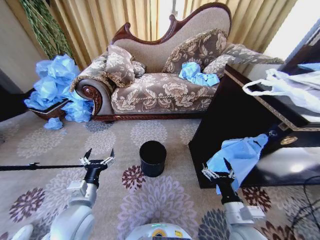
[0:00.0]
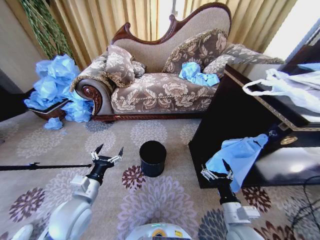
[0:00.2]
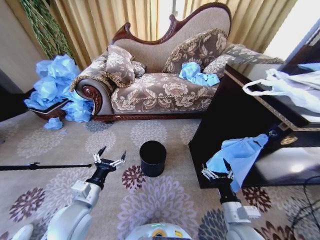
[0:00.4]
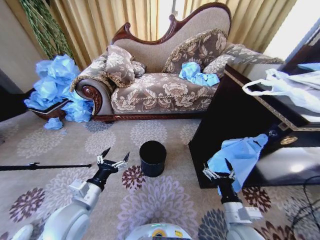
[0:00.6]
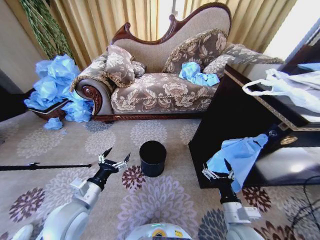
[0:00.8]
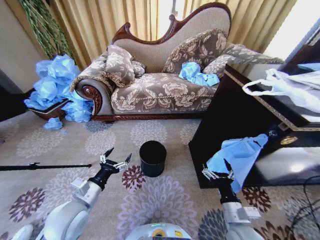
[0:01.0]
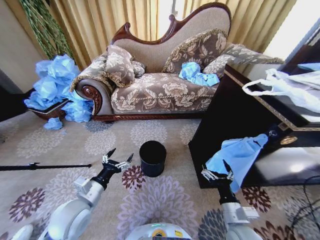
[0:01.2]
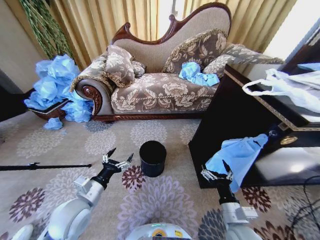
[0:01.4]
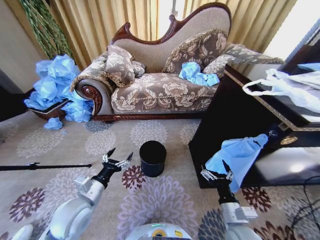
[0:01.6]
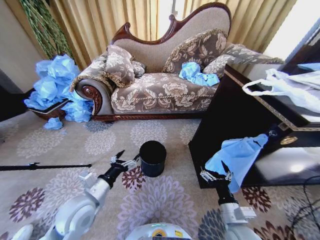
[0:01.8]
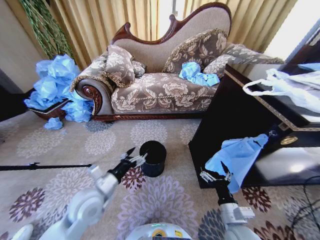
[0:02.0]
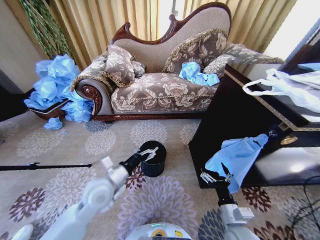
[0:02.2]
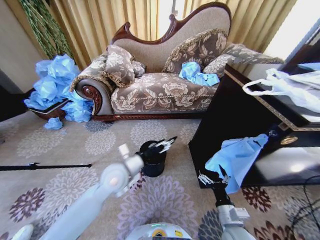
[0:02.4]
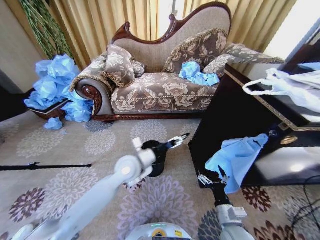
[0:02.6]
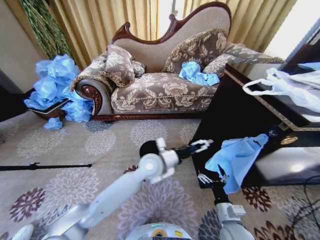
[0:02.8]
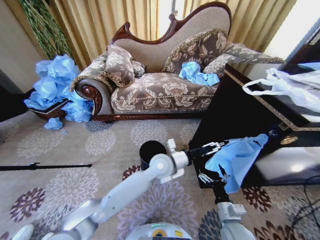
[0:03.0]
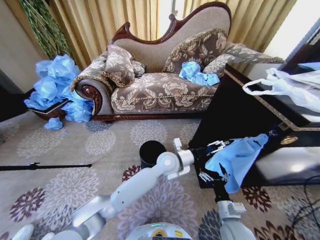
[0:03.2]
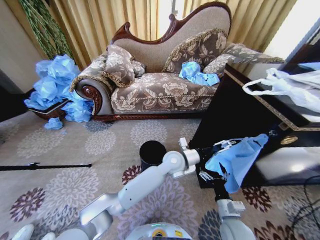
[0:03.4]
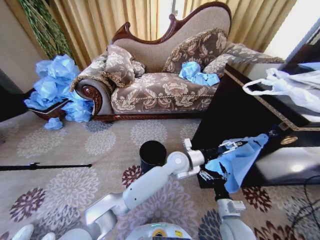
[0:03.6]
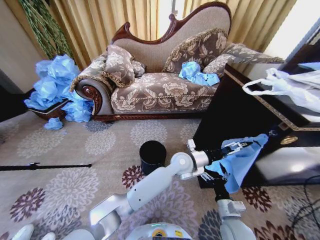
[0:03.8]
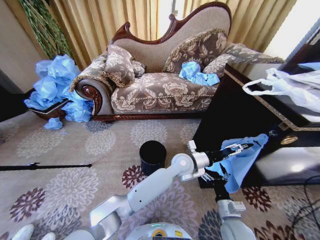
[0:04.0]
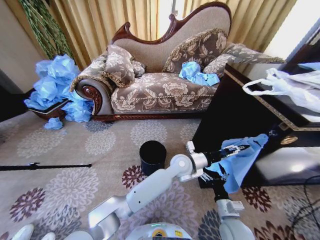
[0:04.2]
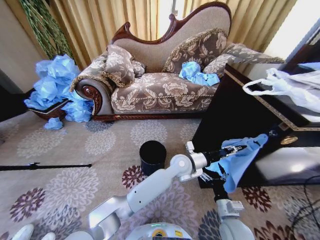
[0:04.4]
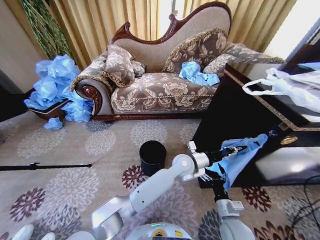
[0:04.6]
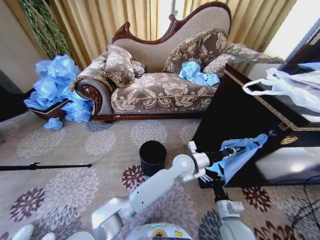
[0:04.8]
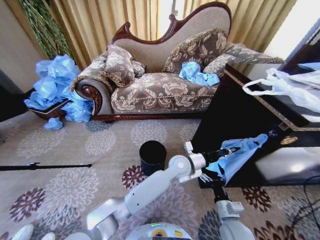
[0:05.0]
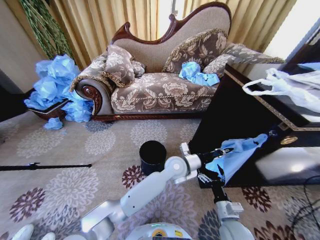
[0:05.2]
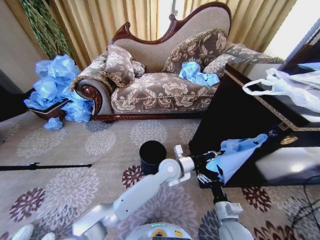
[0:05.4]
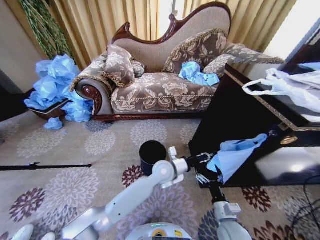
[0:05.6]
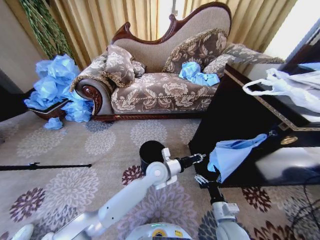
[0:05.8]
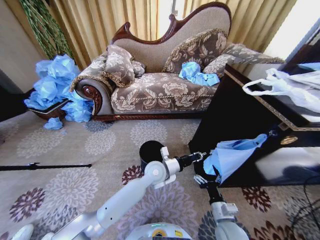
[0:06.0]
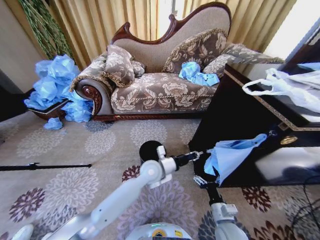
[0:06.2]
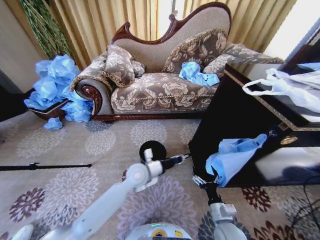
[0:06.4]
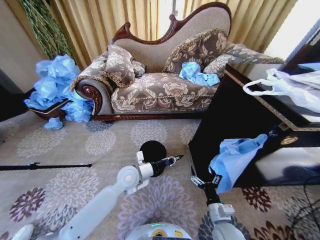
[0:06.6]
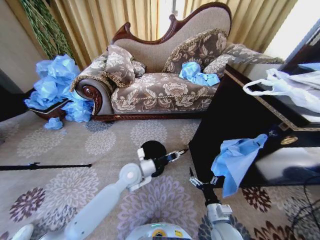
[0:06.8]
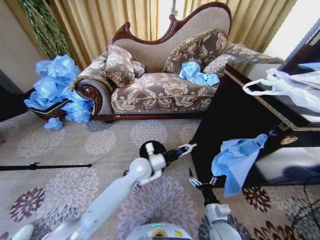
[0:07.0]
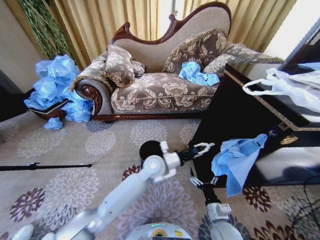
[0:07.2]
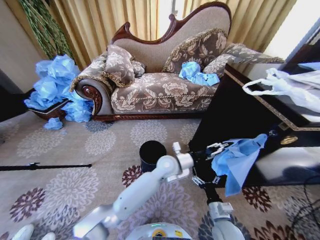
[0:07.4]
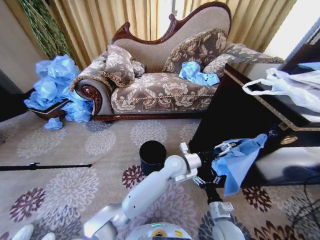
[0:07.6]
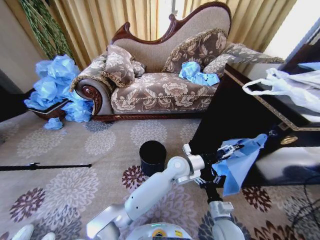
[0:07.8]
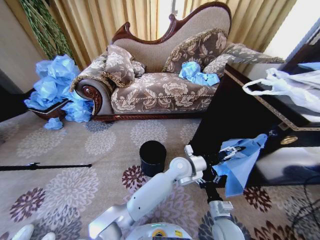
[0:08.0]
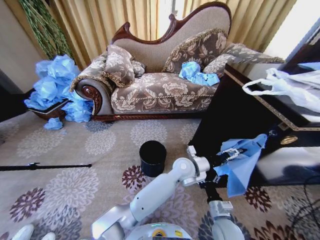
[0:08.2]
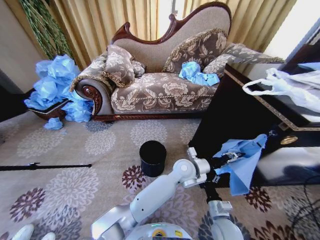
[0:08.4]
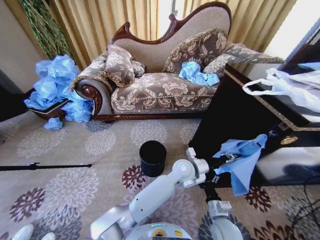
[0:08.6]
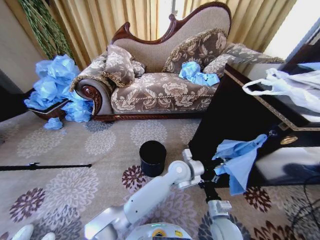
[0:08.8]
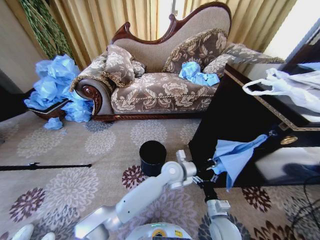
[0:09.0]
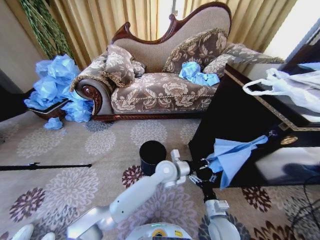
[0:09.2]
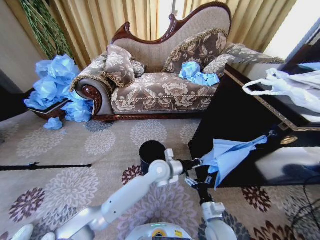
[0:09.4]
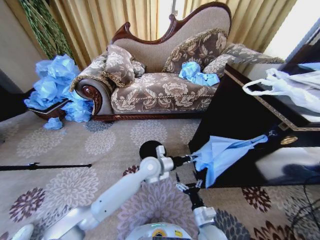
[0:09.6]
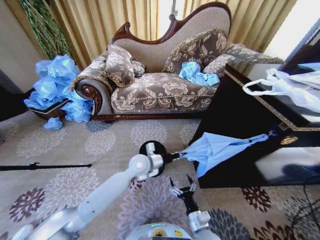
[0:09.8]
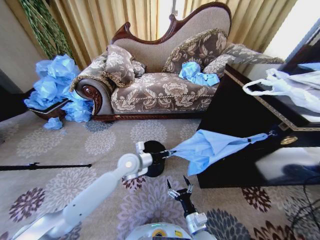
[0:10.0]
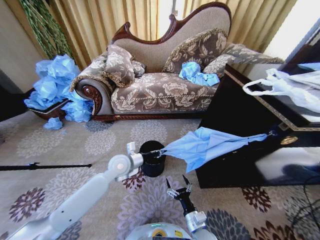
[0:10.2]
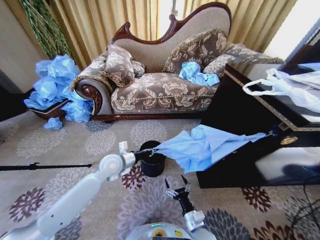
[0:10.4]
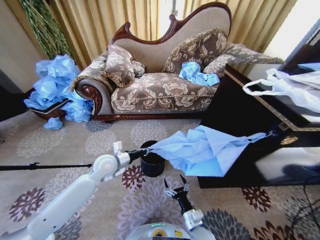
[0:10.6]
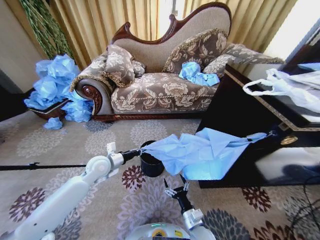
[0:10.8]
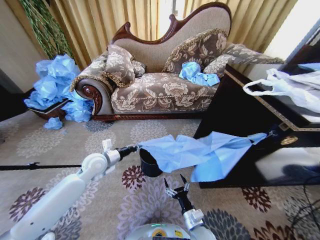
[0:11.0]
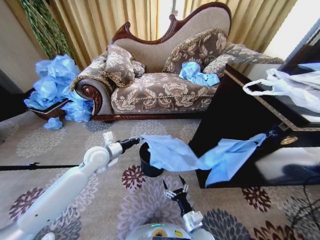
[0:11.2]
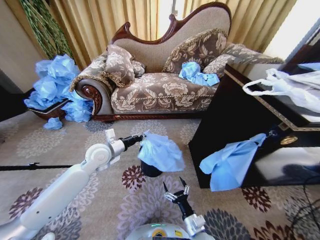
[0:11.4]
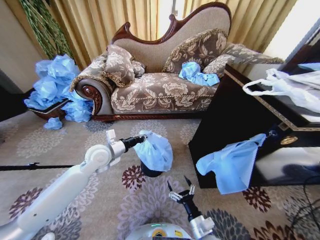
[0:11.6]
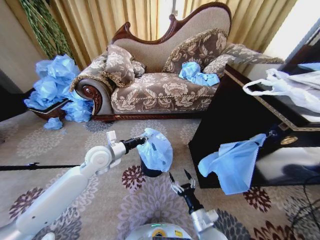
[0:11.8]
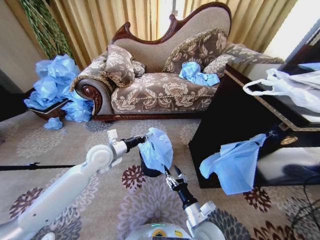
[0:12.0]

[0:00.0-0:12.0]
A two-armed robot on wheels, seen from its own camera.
Task of the whole recording: Place a garbage bag over the trash bin.
0:01.6 to 0:03.0: The left gripper shifts about 30 cm to the right and forward.
0:03.0 to 0:04.4: The left gripper goes roughly 10 cm to the right, and closes up.
0:04.4 to 0:06.0: The left gripper heads to the left, covering approximately 10 cm, and closes up.
0:06.0 to 0:07.6: The left gripper is displaced to the right by about 10 cm, and opens.
0:07.6 to 0:09.0: The left gripper closes.
0:09.0 to 0:10.4: The right gripper shifts some 10 cm to the left, while the left gripper goes approximately 25 cm to the left.
0:10.4 to 0:12.0: Both grippers travel together upward, about 5 cm.

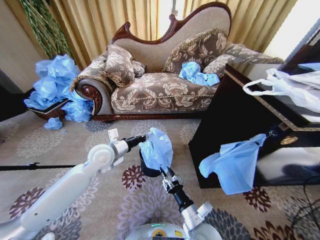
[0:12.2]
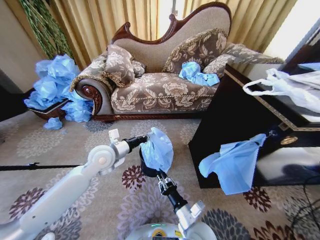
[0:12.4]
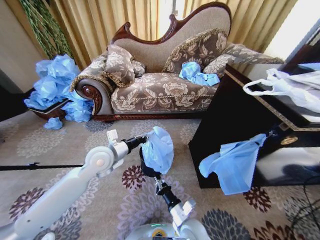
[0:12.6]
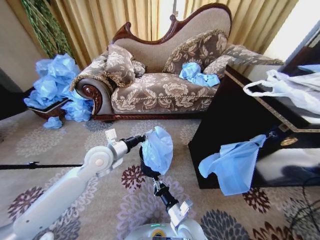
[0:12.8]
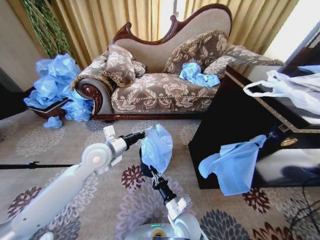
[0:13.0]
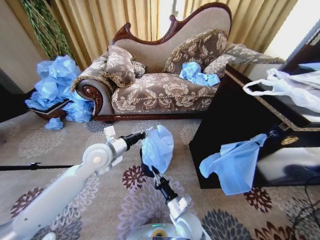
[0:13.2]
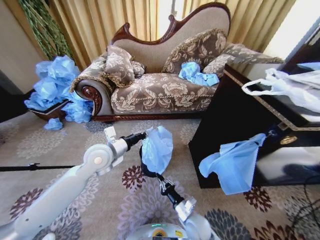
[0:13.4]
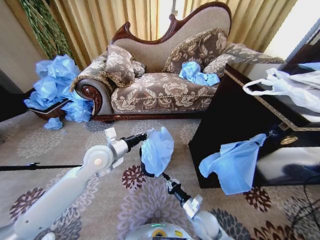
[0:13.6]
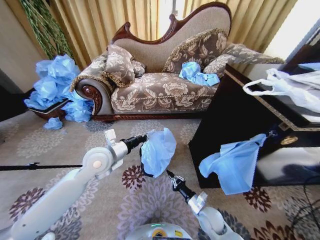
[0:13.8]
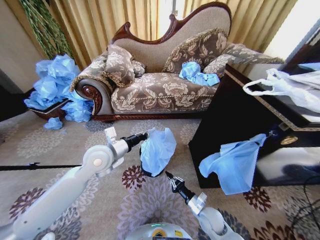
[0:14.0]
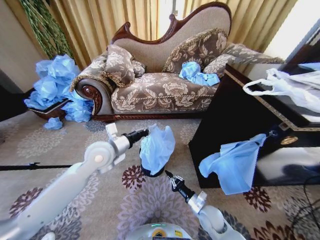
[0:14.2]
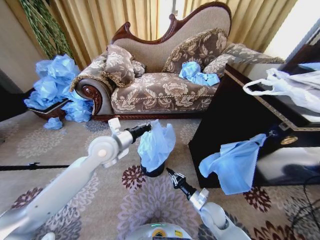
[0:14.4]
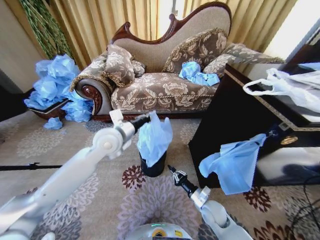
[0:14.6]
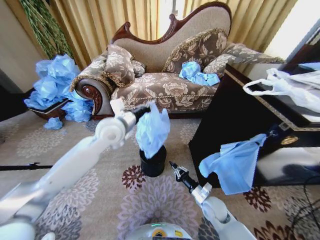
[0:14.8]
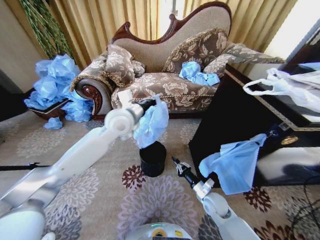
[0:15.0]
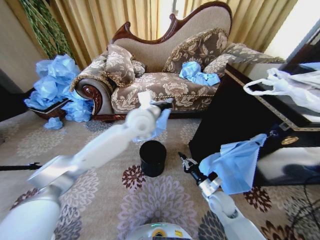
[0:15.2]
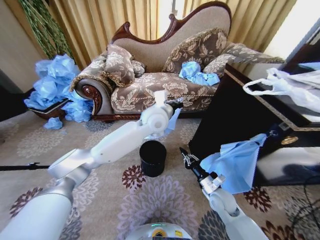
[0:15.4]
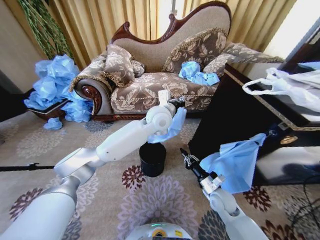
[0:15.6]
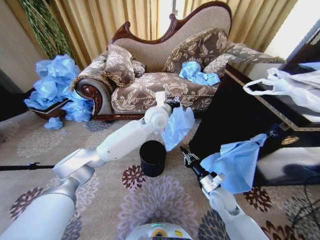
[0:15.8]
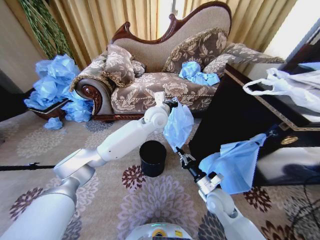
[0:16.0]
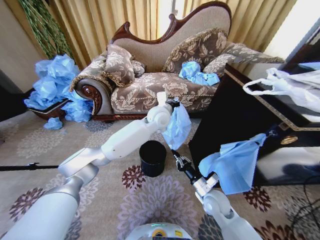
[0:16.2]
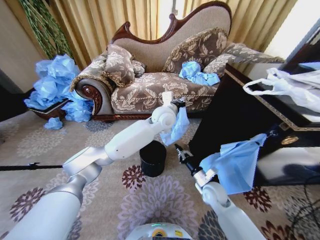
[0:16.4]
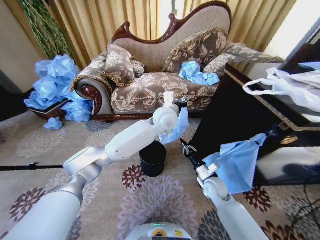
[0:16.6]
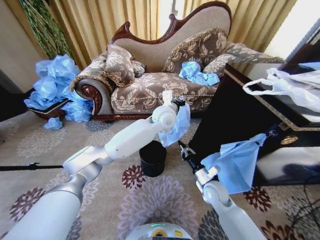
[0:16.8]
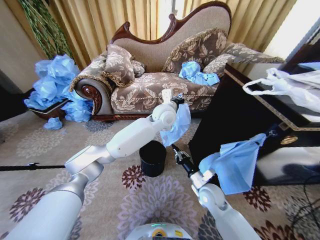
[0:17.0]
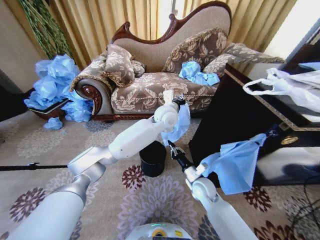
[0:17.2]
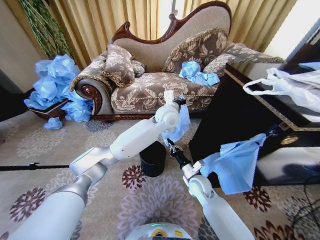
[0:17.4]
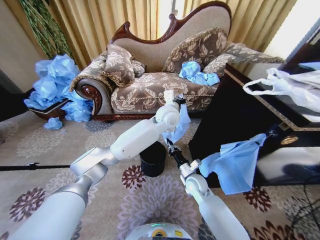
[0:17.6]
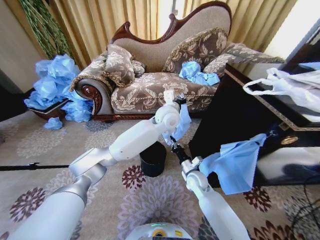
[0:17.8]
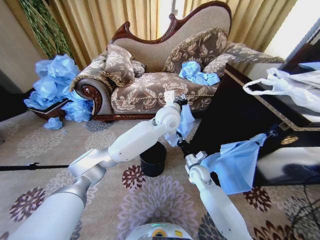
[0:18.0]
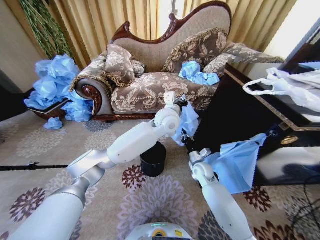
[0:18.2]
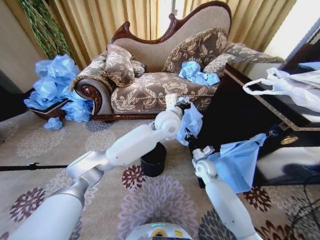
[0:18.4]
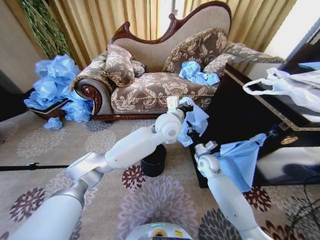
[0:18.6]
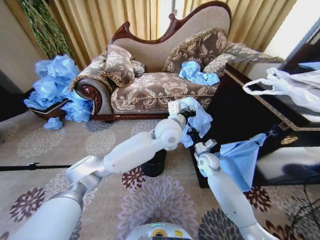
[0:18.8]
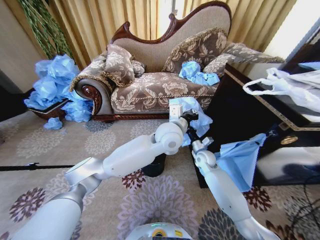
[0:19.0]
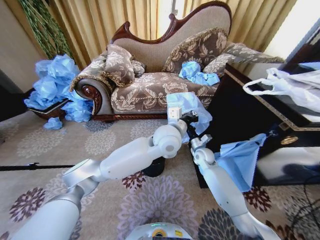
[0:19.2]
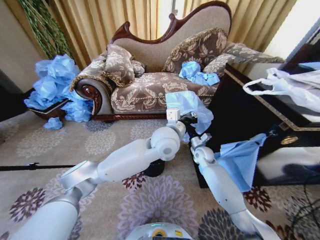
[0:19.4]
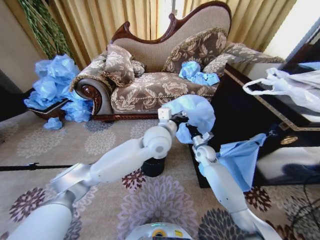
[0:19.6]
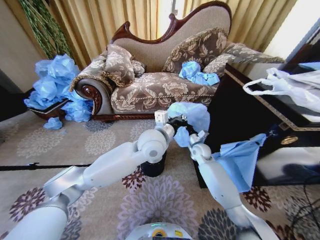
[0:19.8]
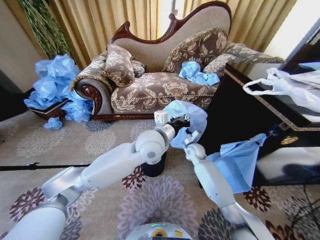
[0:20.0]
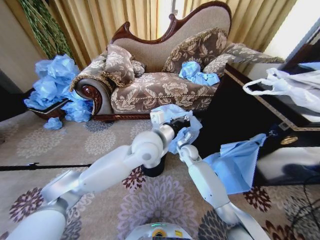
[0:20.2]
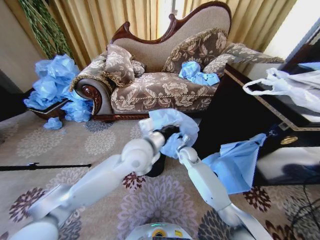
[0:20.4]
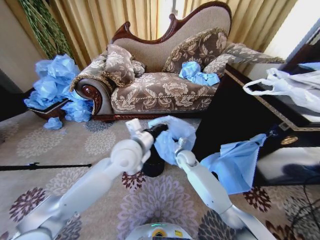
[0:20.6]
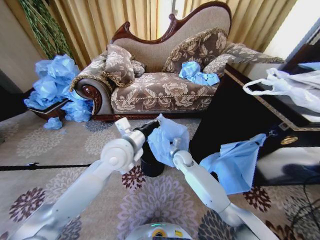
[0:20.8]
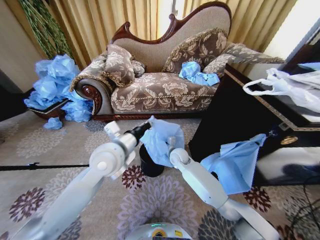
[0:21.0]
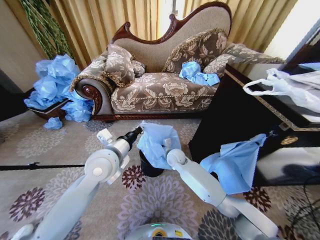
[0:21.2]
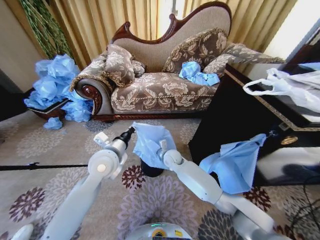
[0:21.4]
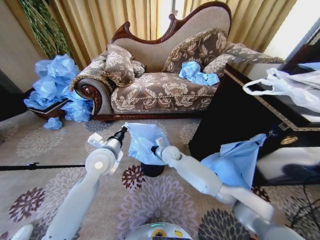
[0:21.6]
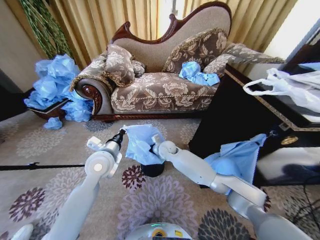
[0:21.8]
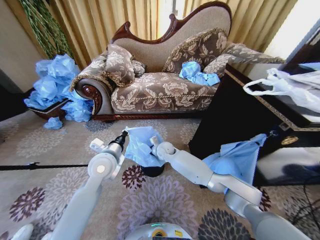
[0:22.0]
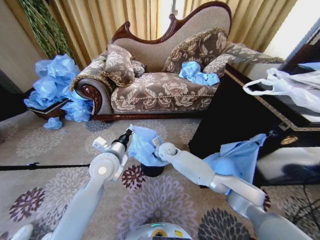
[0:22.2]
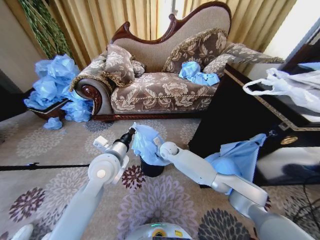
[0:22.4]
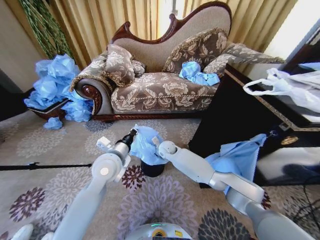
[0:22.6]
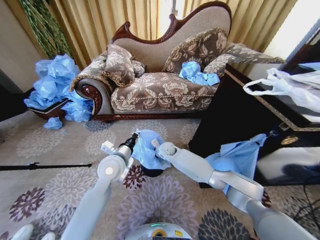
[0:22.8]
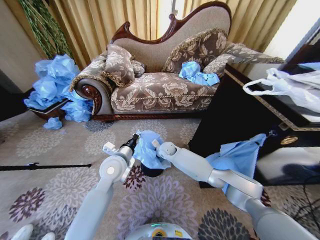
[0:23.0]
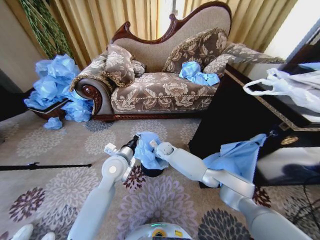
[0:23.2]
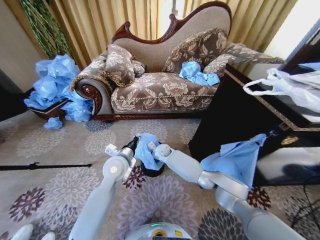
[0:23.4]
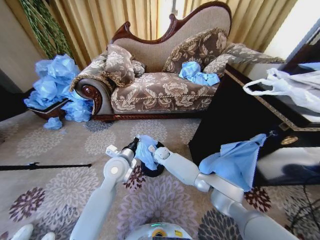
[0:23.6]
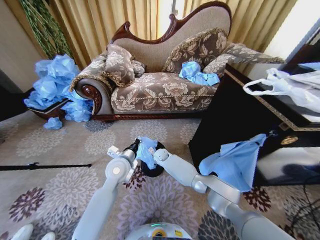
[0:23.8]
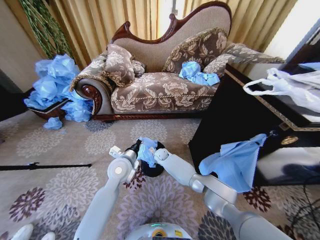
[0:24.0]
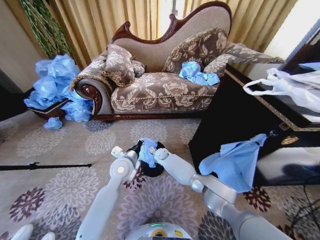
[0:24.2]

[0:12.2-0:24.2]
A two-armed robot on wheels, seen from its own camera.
Task of the whole recording: Place a garbage bag over the trash bin.
0:12.2 to 0:13.8: The right gripper is displaced downward, forward and to the right by approximately 15 cm, and closes its fingers.
0:13.8 to 0:15.2: The left gripper shifts approximately 20 cm to the right, upward and forward. The right gripper shifts some 5 cm upward.
0:15.2 to 0:16.6: The right gripper travels forward by approximately 5 cm. Meanwhile the left gripper heads to the right, covering about 10 cm.
0:16.6 to 0:18.2: The right gripper moves forward, approximately 10 cm.
0:18.2 to 0:19.8: The right gripper moves forward and upward, roughly 10 cm. Meanwhile the left gripper shifts some 10 cm backward and to the left.
0:19.8 to 0:21.2: The left gripper travels to the left and backward by some 15 cm. Meanwhile the right gripper goes roughly 15 cm to the left.
0:21.2 to 0:22.6: The right gripper travels forward by roughly 5 cm.
0:22.6 to 0:24.2: The two grippers go about 10 cm downward.
